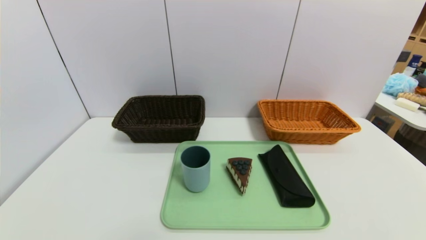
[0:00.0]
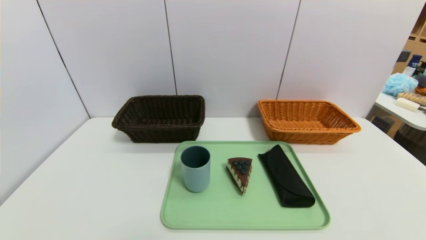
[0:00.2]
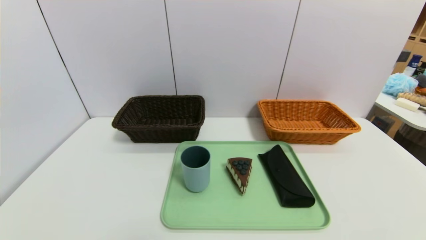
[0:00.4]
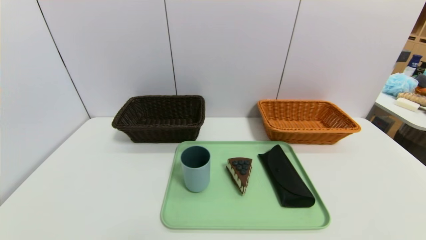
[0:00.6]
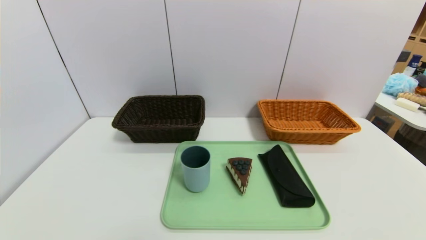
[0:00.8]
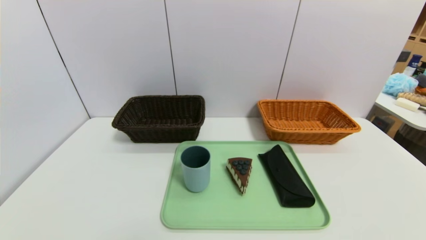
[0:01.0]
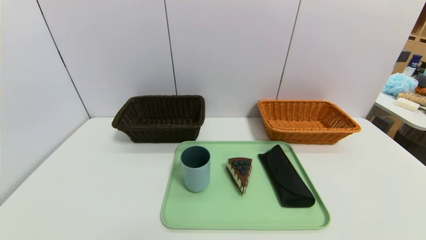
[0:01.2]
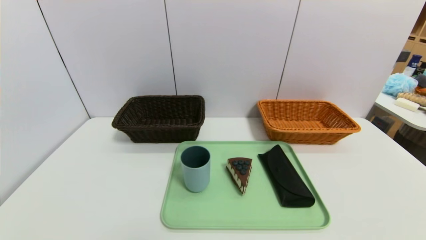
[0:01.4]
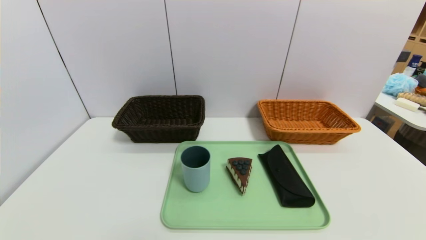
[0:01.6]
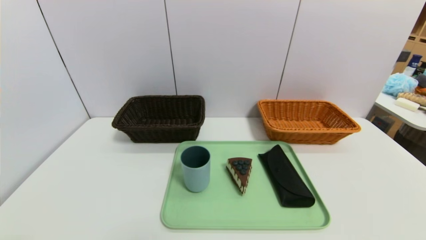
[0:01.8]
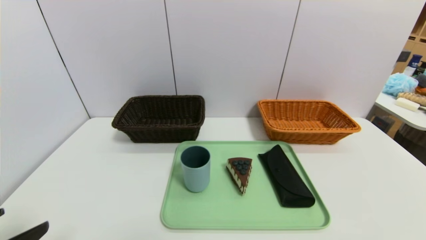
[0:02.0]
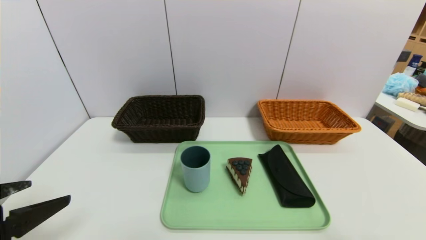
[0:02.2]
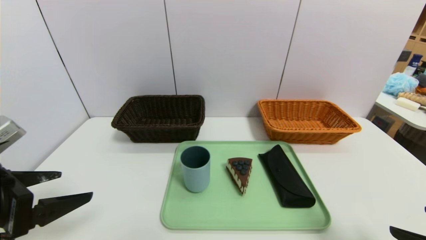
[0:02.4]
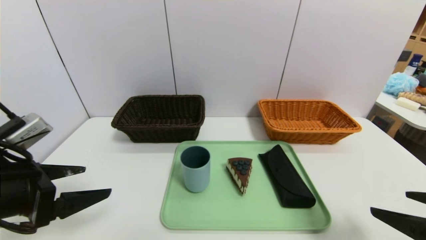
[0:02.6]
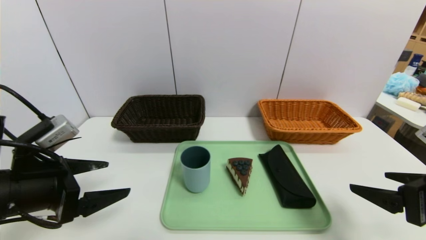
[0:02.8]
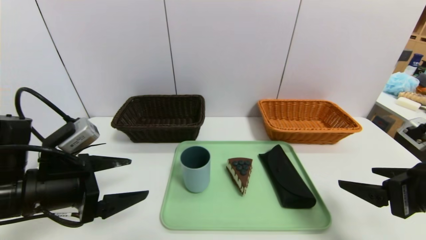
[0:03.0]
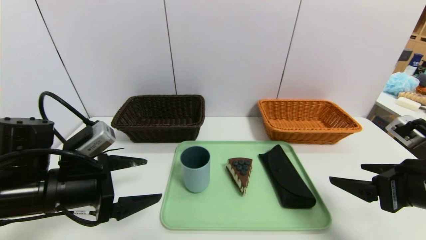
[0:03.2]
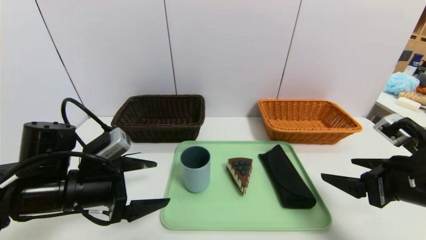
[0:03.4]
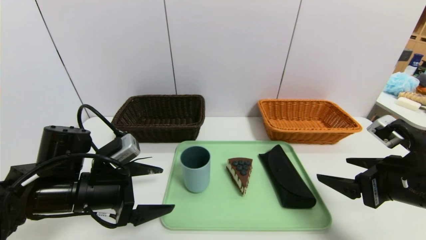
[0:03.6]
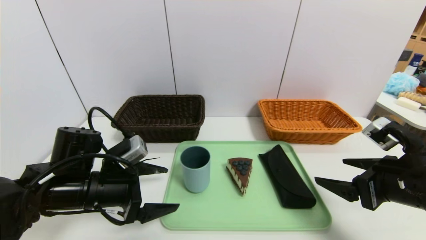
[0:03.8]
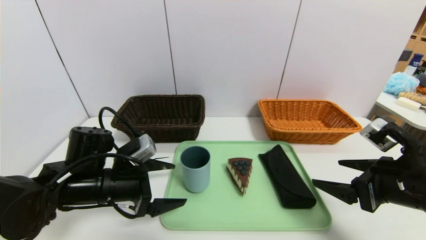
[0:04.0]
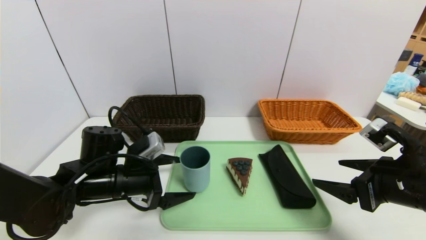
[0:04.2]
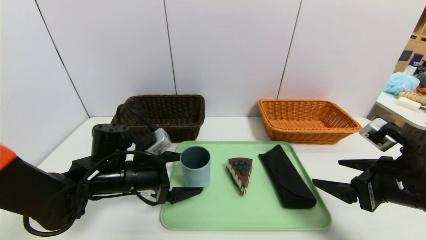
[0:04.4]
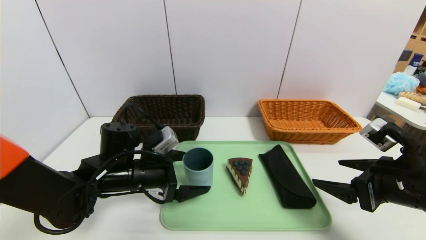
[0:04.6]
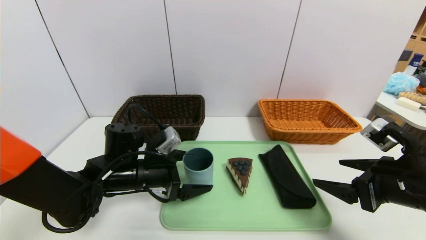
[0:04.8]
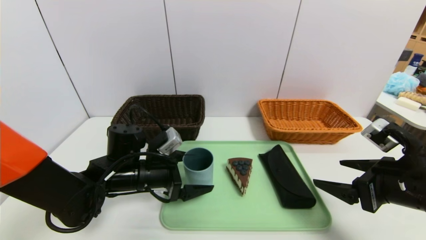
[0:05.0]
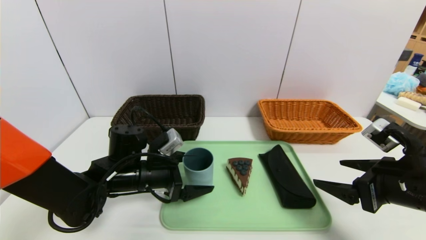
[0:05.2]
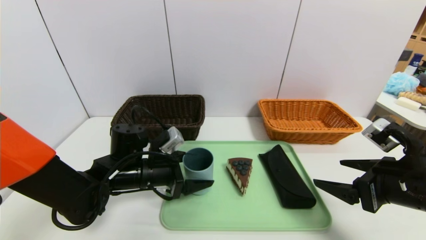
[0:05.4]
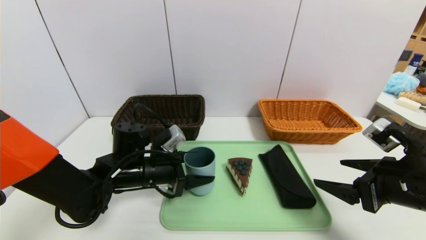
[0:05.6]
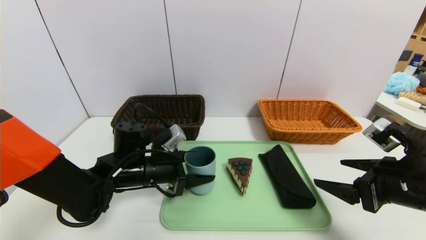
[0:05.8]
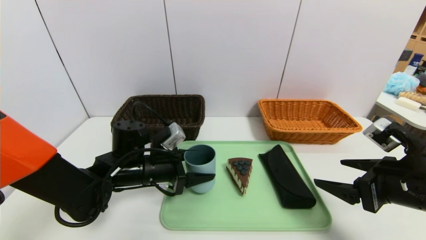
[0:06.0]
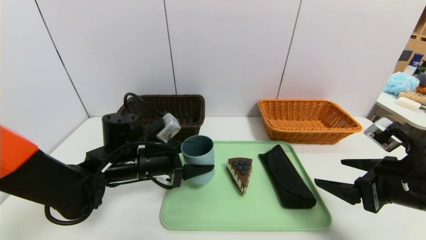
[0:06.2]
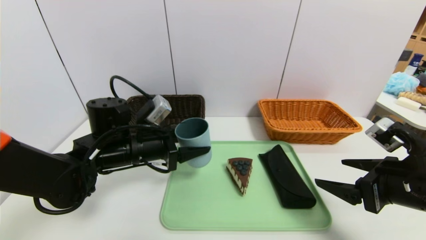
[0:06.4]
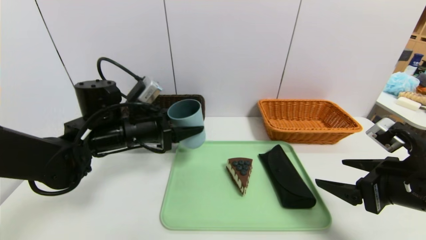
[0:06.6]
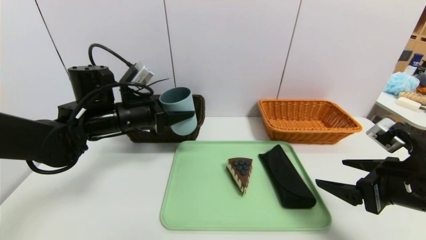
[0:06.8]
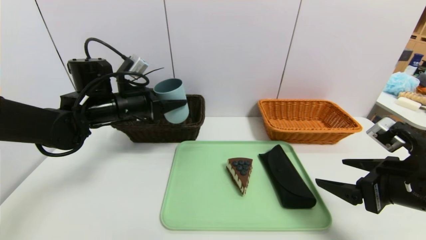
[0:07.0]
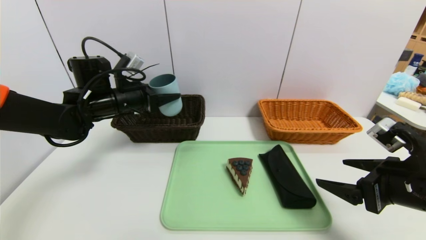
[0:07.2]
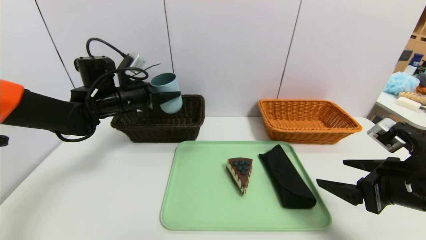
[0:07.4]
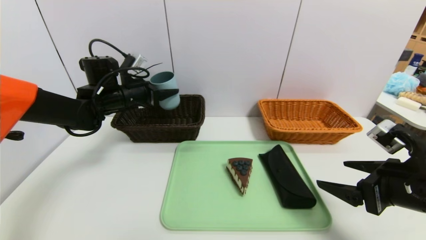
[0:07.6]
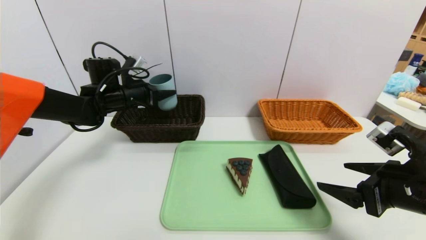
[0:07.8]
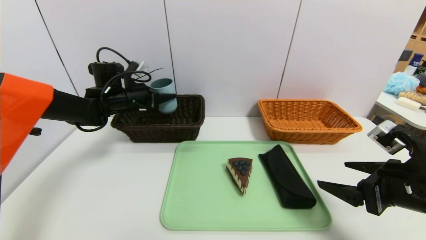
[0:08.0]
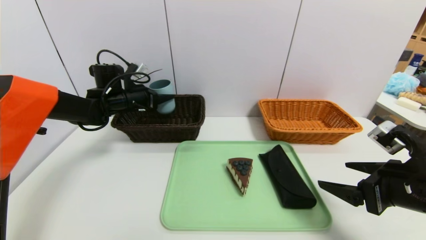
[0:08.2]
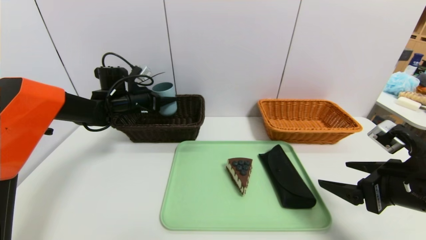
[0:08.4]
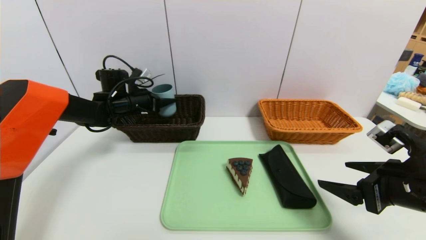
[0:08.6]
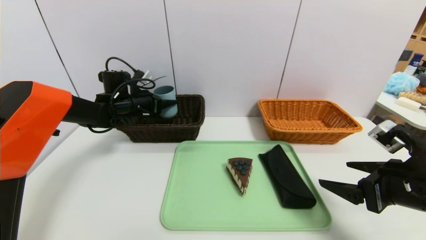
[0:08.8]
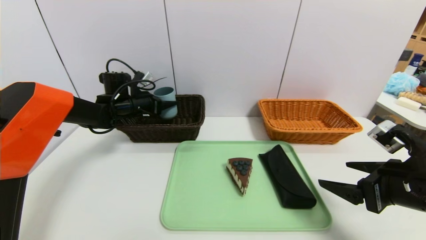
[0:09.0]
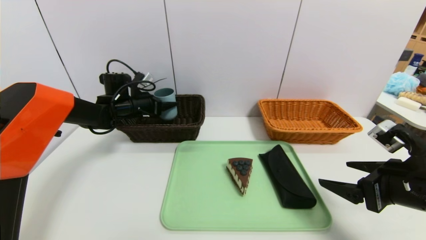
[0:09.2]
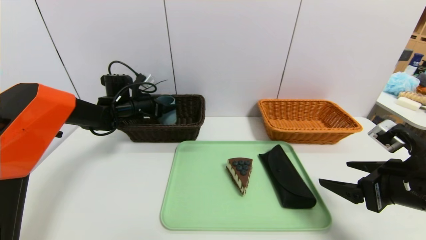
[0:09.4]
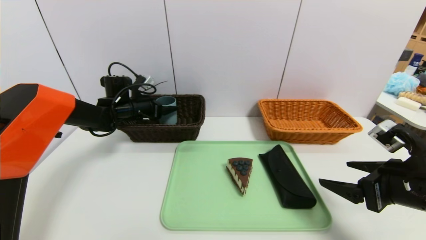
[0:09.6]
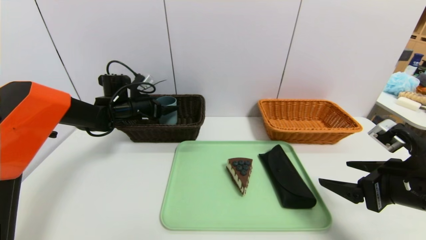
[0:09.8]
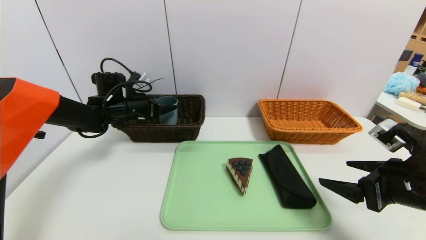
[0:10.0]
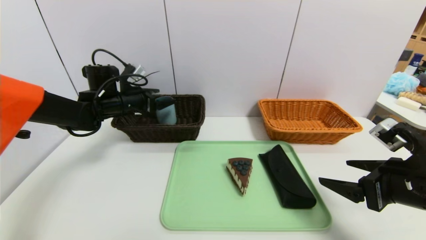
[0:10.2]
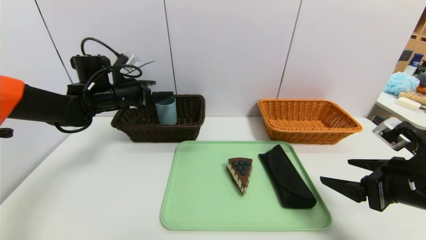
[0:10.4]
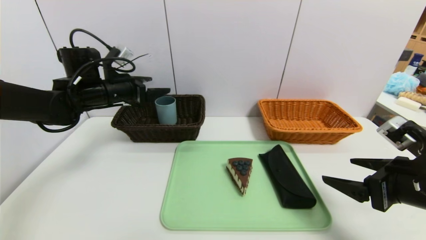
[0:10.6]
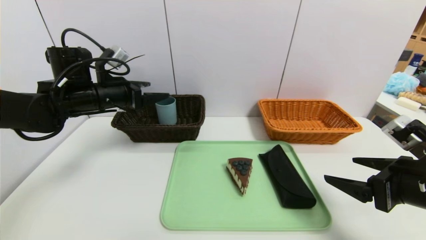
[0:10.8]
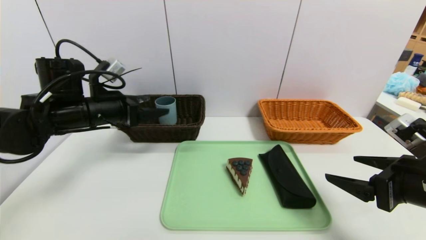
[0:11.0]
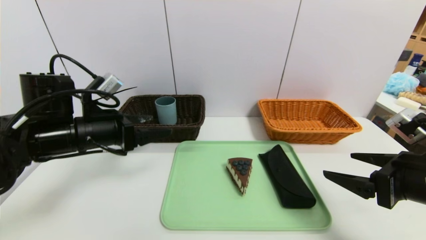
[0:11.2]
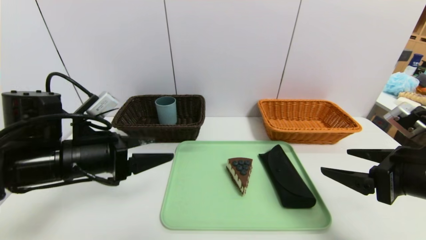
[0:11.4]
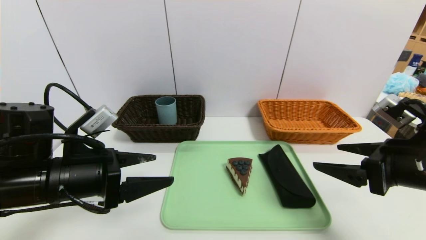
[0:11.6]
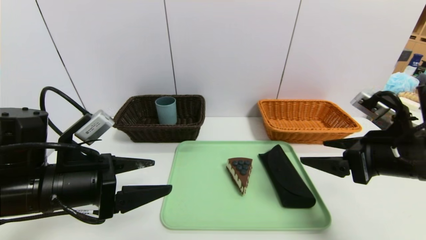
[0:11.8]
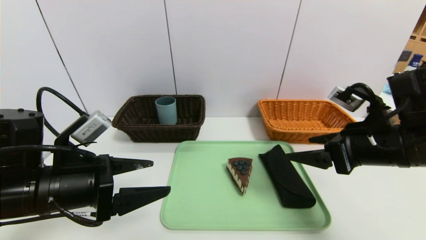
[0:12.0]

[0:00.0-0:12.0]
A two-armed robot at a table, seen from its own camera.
Task of the whole recording: place the food in the right basket with the right gripper, and place the non food items in the left basket with the left gripper.
Step, 0:00.0 to 0:09.8: Grasp the blue cup and put it in the left basket.
0:01.6 to 0:03.0: The two grippers go some 20 cm forward.
0:03.0 to 0:04.4: The left gripper travels forward, to the right and downward by roughly 15 cm.
0:04.4 to 0:06.0: The left gripper closes.
0:06.0 to 0:07.6: The left gripper heads forward, upward and to the left, covering some 20 cm.
0:07.6 to 0:09.0: The left gripper heads forward and downward, covering about 10 cm.
0:09.0 to 0:10.4: The left gripper moves backward and upward, roughly 10 cm, and opens.
0:10.4 to 0:12.0: The left gripper travels backward by about 25 cm. Meanwhile the right gripper is displaced forward by some 5 cm.

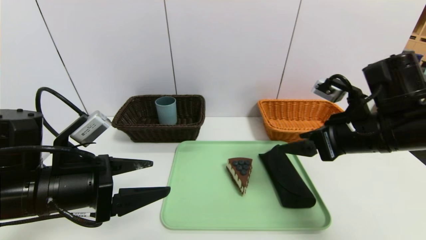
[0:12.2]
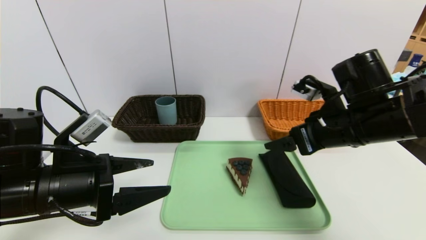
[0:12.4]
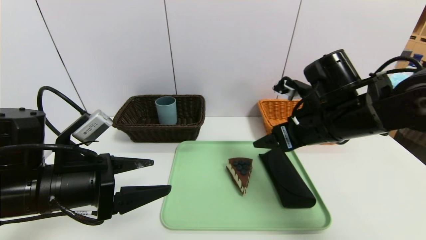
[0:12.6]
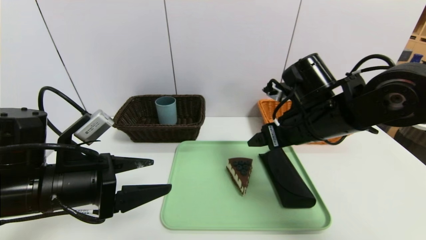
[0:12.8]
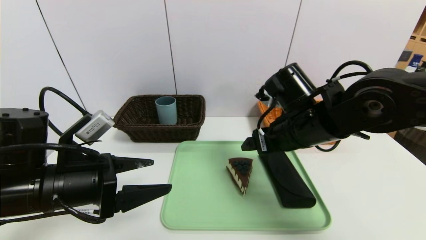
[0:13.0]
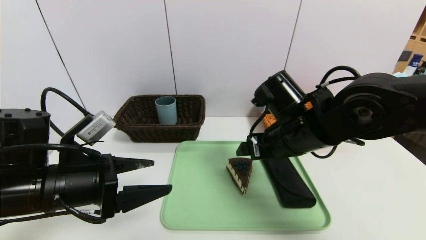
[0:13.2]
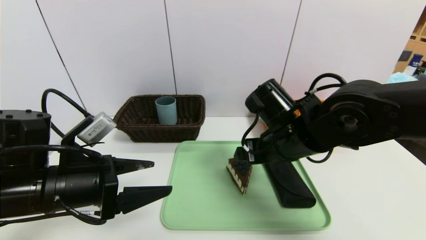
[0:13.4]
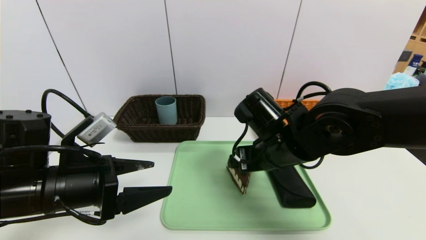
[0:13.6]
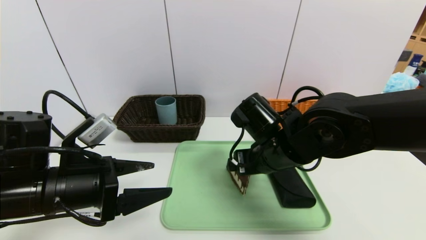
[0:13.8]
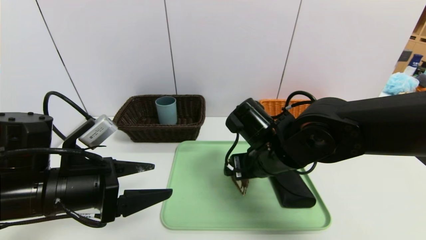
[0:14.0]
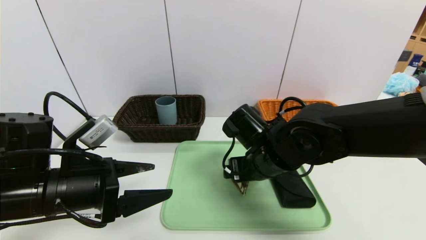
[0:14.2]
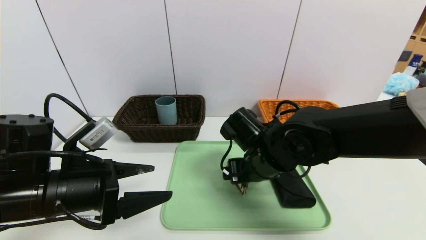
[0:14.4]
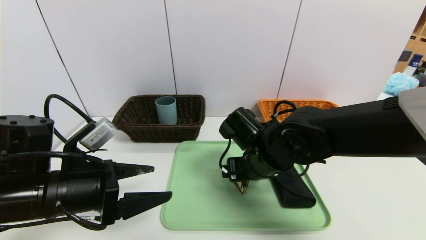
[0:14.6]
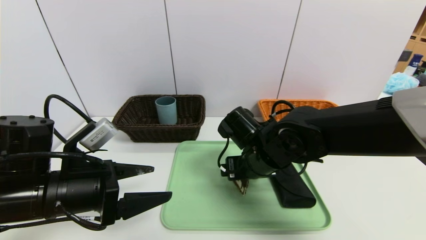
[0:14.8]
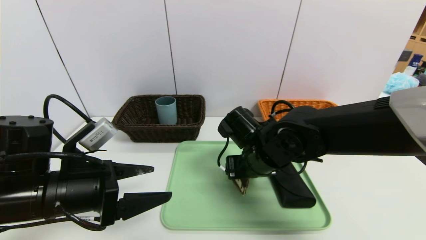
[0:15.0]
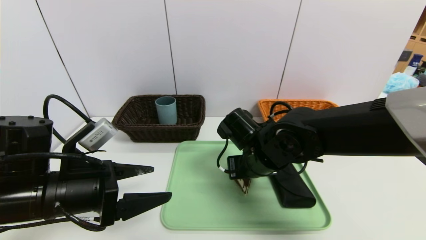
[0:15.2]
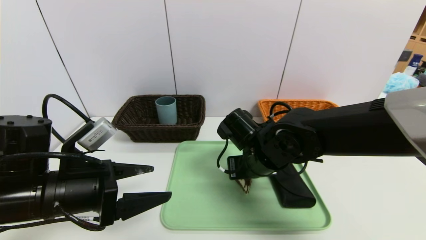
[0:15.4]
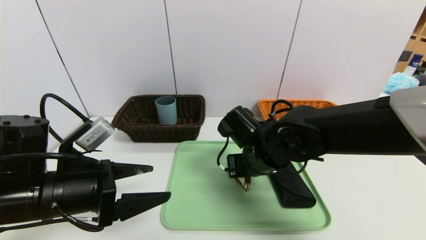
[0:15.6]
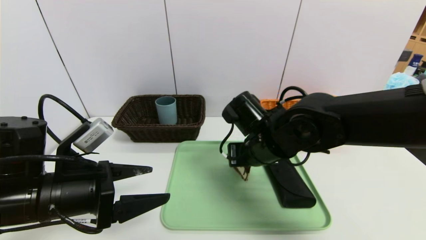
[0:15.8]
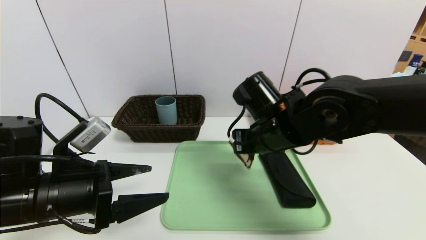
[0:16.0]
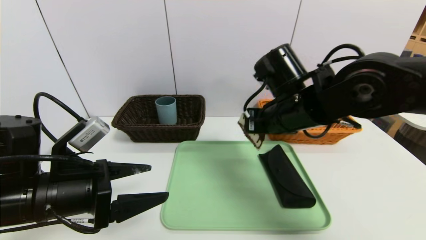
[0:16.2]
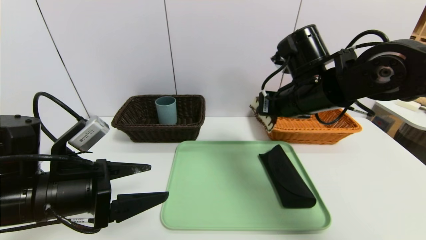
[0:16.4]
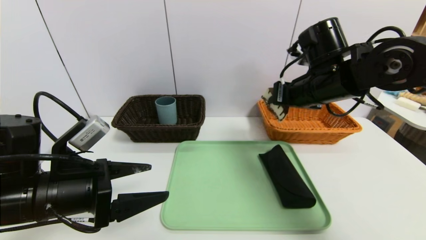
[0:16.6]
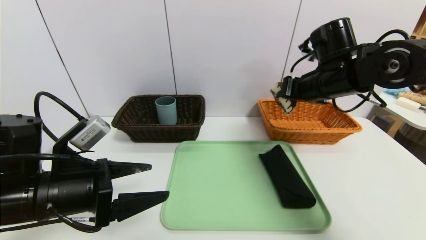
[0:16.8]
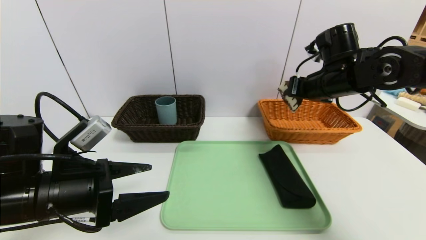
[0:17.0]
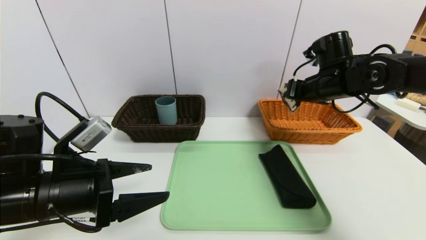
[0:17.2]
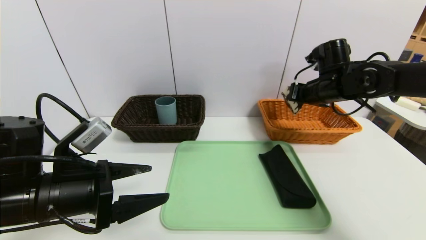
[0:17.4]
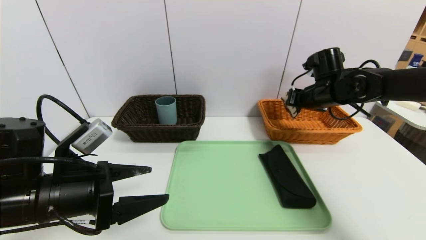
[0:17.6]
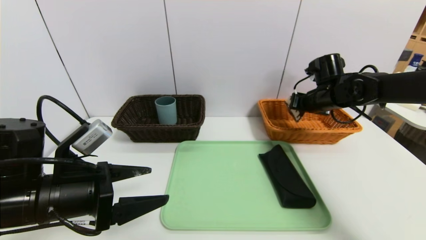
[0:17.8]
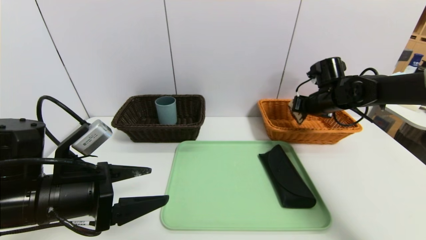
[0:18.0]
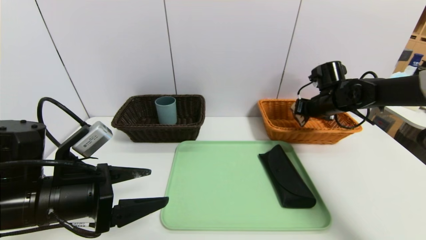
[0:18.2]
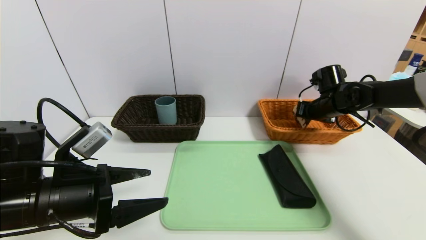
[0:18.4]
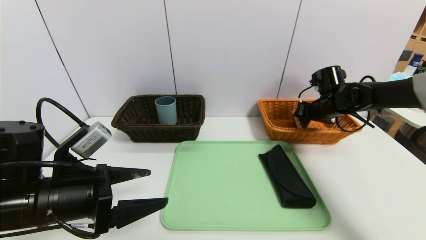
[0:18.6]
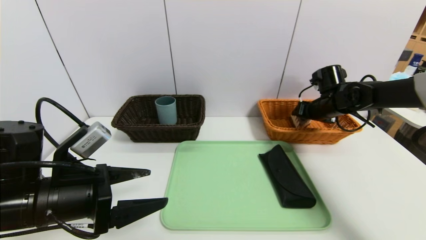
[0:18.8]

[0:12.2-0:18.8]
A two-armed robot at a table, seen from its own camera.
Task of the whole recording: place the food in the right basket with the right gripper, and place the non food items in the left basket with the left gripper.
0:12.2 to 0:13.8: The right gripper shifts some 15 cm to the left.
0:13.8 to 0:15.4: The right gripper closes.
0:15.4 to 0:17.2: The right gripper shifts about 20 cm to the right, forward and upward.
0:17.2 to 0:18.8: The right gripper is displaced downward, to the right and forward by approximately 10 cm, and opens its fingers.
